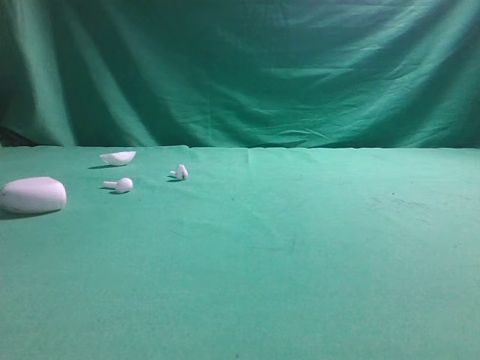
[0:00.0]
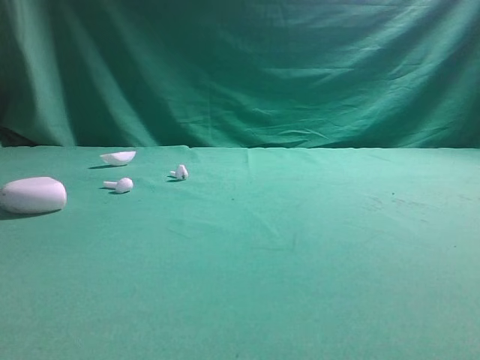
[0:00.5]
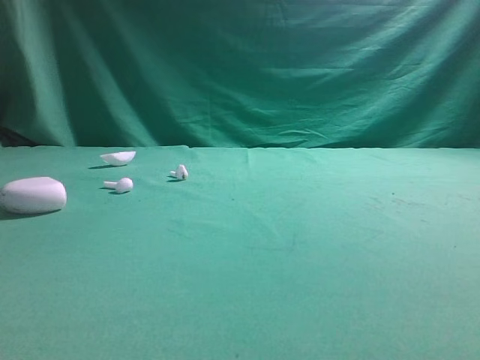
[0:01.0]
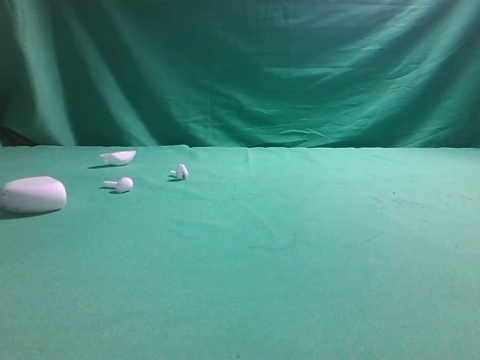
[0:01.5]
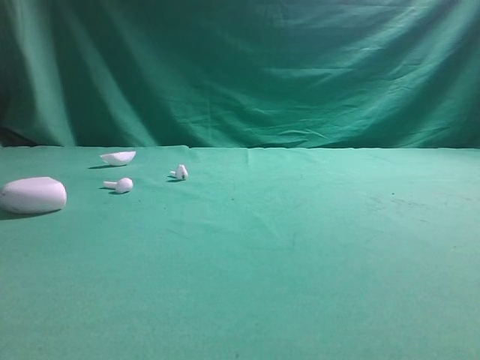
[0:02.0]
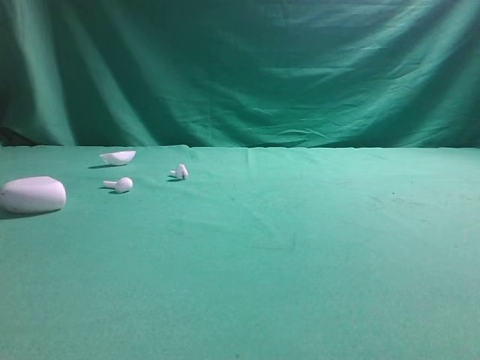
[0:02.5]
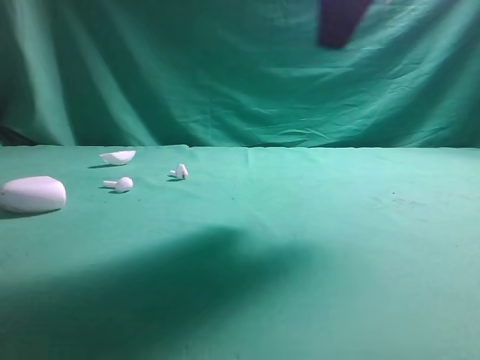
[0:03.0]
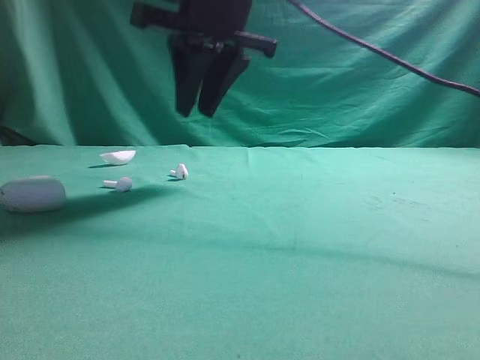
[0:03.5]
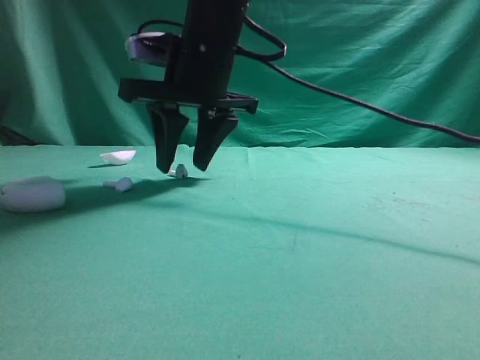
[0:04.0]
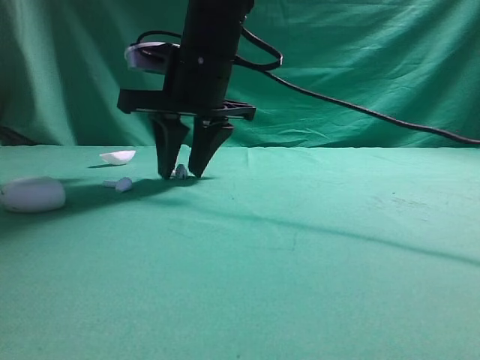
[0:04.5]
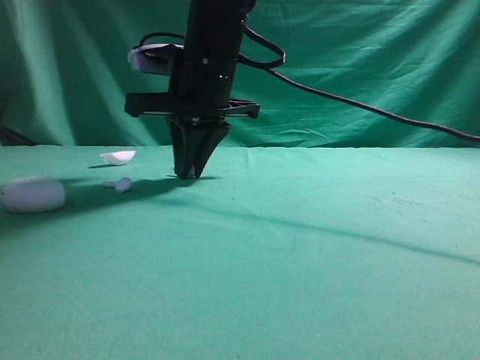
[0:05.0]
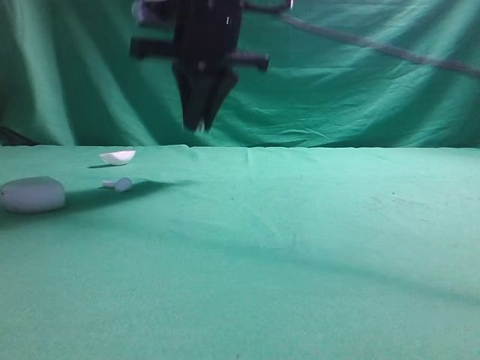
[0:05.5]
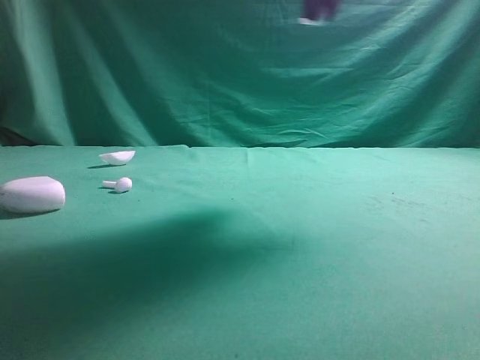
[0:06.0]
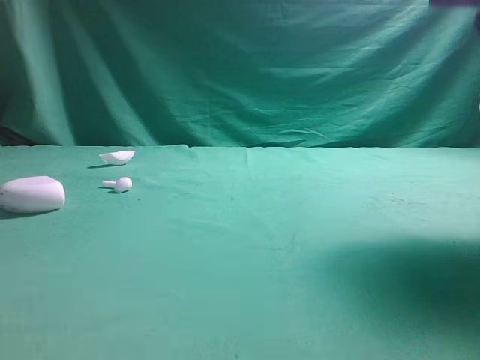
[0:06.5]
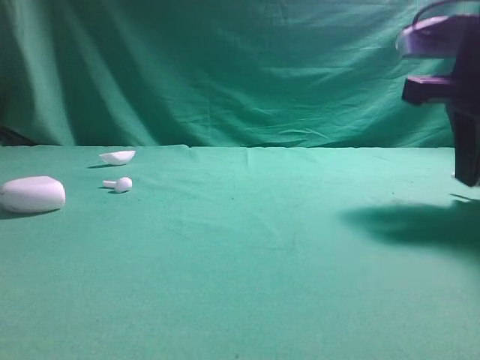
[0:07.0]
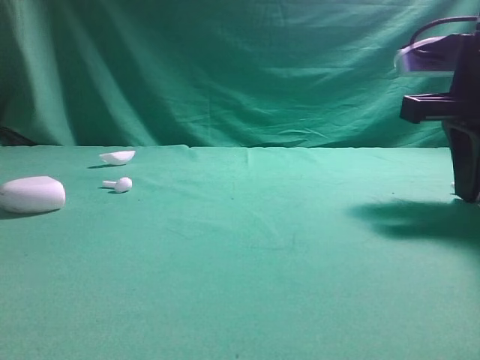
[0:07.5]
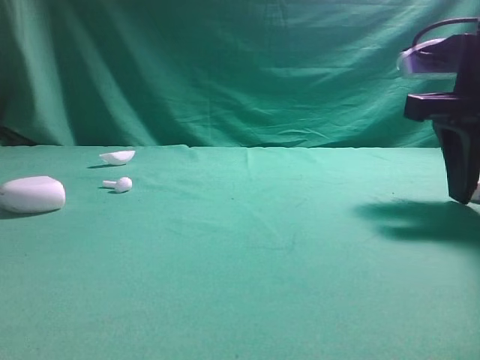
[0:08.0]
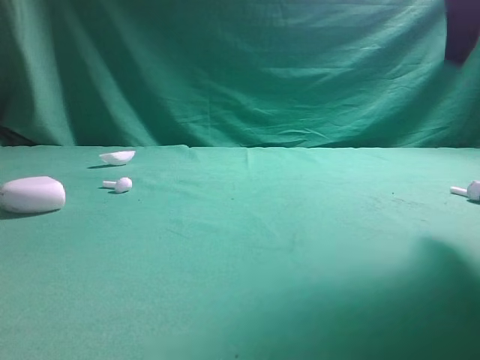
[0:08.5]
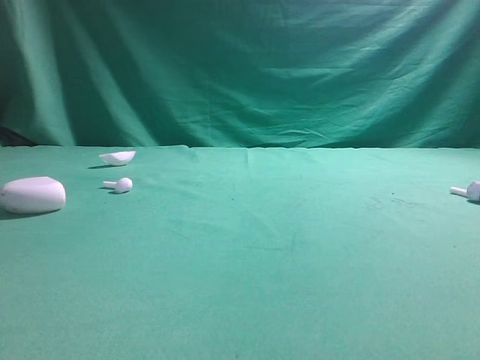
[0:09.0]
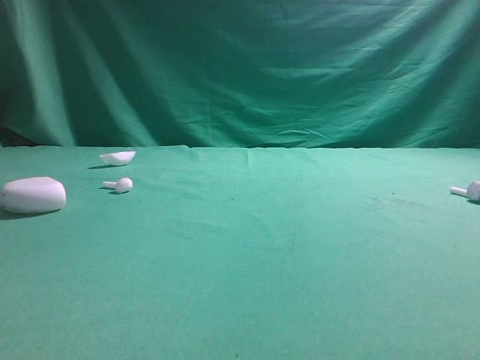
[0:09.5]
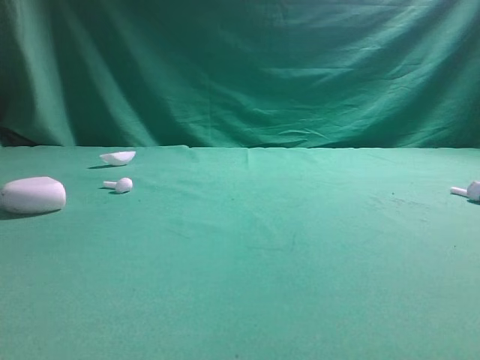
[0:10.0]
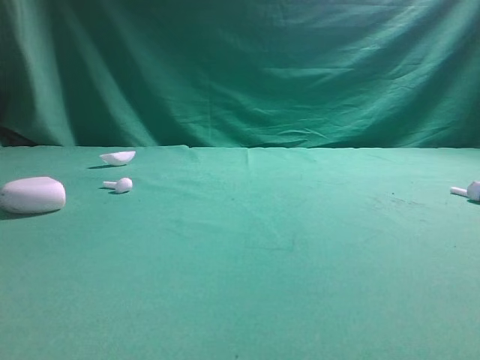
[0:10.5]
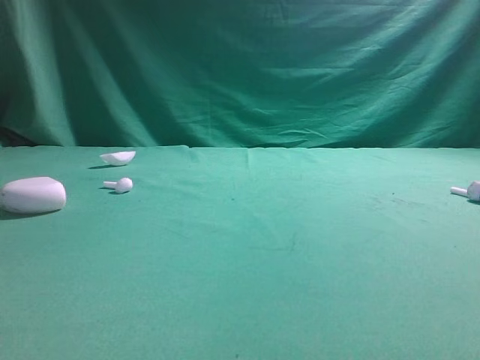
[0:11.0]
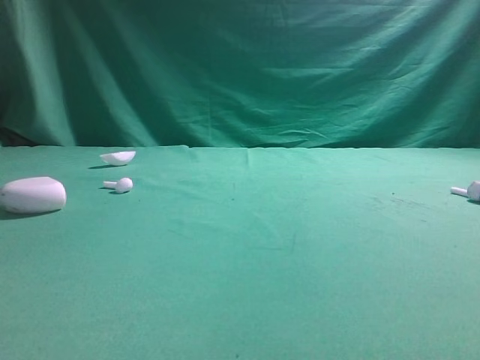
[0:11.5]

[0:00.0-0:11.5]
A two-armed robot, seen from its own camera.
Step, 0:00.0 to 0:05.5: Grasp the Bluetooth earbud.
Step, 0:06.0 to 0:08.0: Place bluetooth earbud on the right side of the table.
